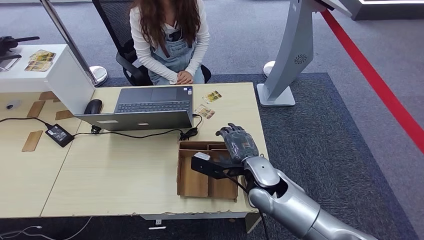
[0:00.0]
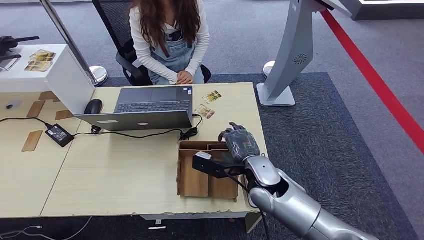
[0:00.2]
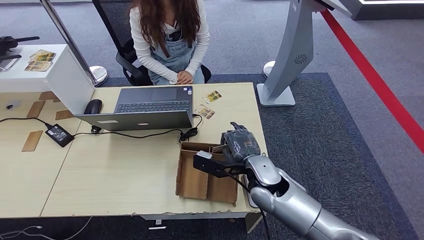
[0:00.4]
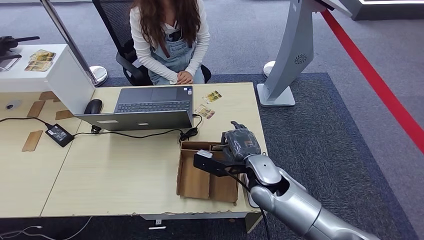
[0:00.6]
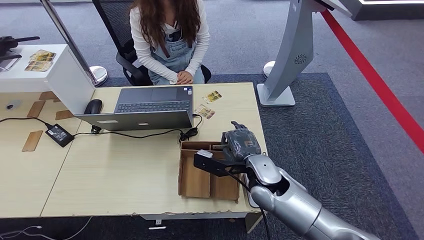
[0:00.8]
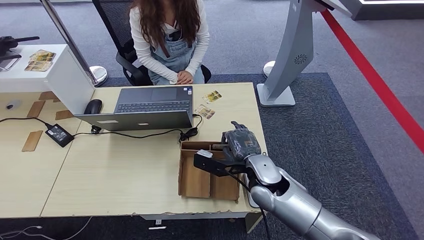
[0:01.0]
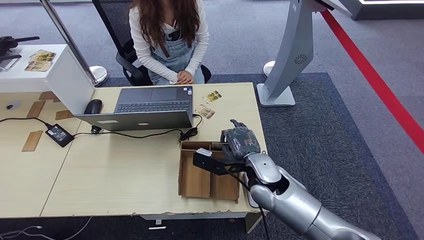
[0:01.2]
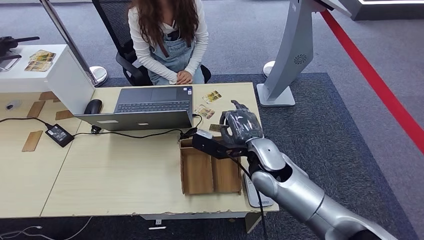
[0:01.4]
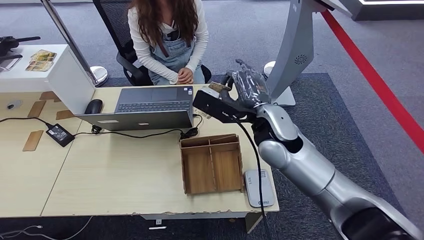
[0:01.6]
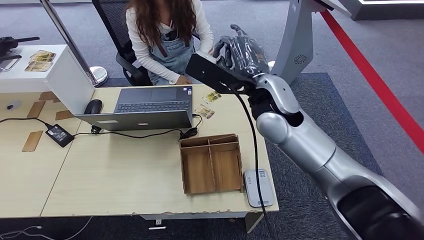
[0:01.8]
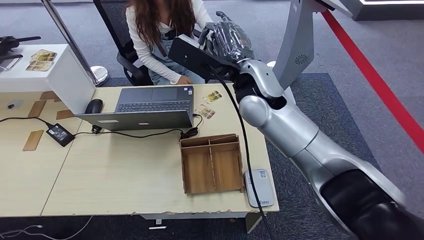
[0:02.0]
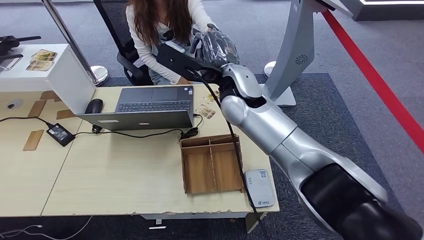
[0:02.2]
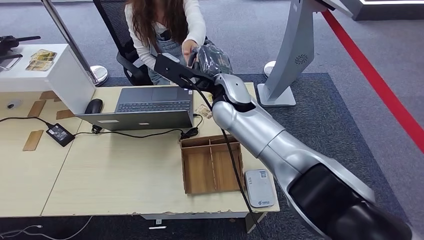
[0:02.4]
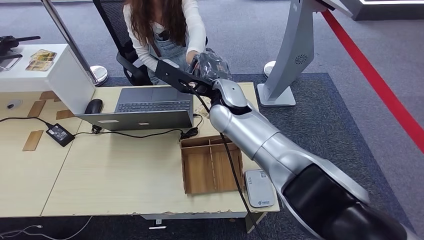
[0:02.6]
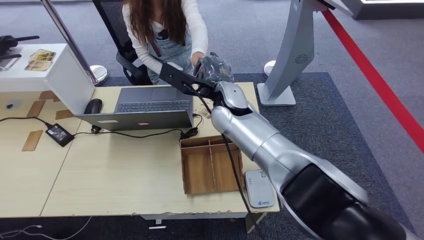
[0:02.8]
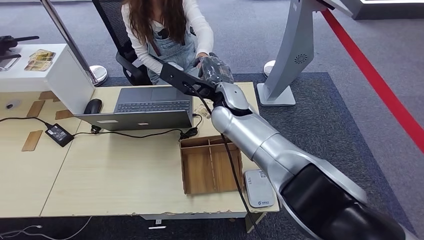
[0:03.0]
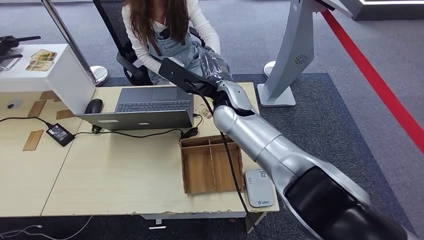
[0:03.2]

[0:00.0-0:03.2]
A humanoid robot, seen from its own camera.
Step, 0:01.4 to 0:03.2: Hand the room key to the person.
0:00.0 to 0:01.6: The right hand shifts some 15 cm upward and forward.
0:01.6 to 0:03.2: The right hand shifts roughly 10 cm to the left and forward.
